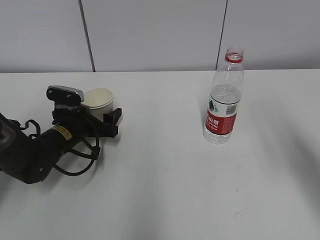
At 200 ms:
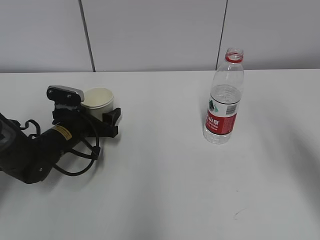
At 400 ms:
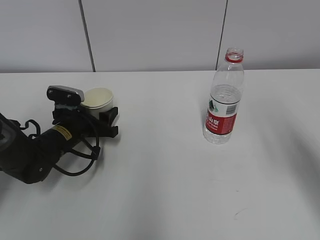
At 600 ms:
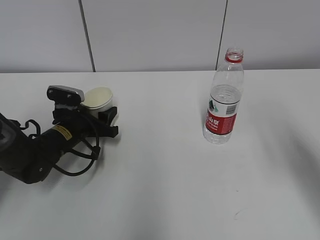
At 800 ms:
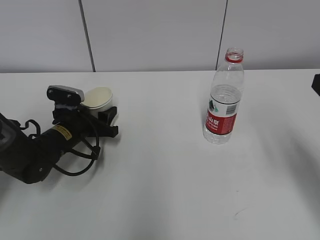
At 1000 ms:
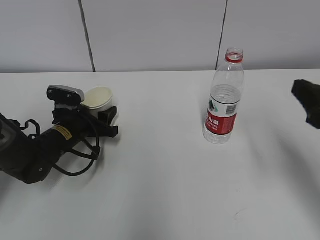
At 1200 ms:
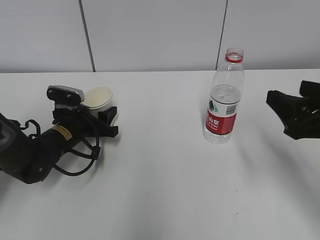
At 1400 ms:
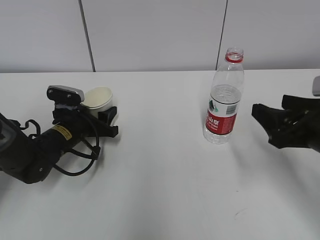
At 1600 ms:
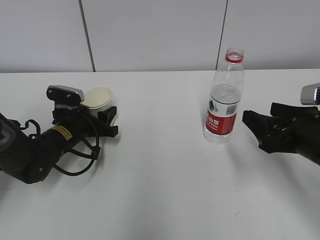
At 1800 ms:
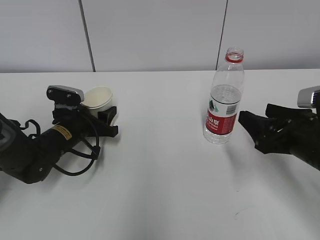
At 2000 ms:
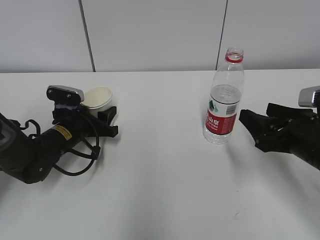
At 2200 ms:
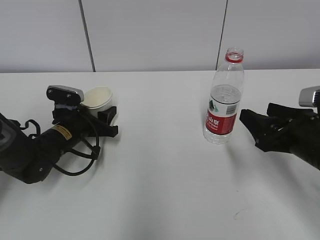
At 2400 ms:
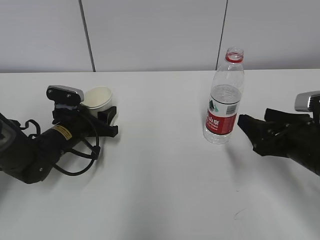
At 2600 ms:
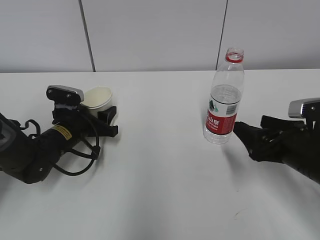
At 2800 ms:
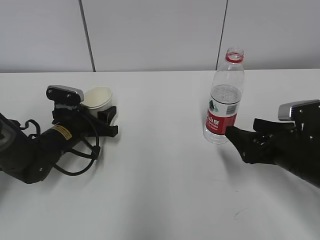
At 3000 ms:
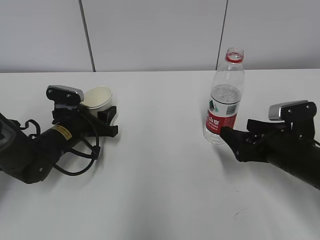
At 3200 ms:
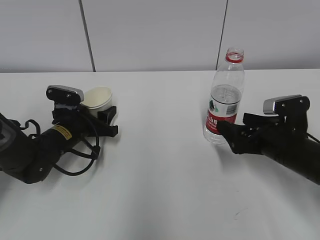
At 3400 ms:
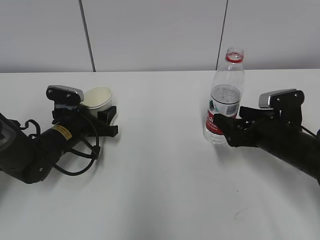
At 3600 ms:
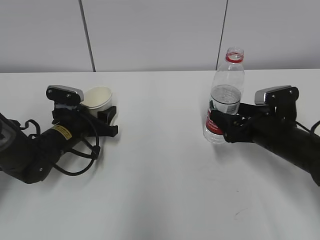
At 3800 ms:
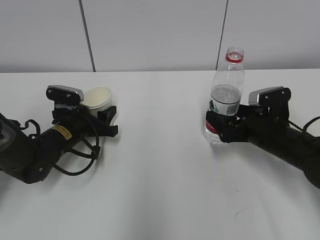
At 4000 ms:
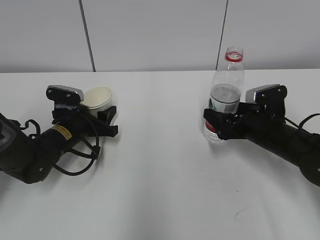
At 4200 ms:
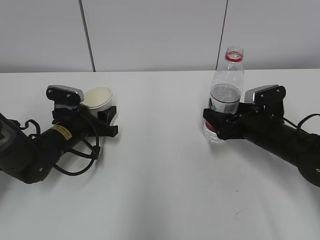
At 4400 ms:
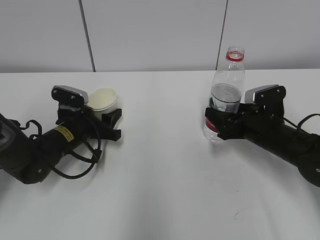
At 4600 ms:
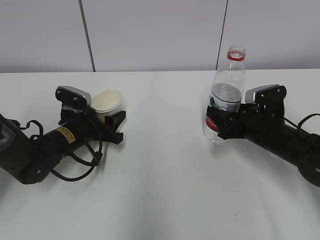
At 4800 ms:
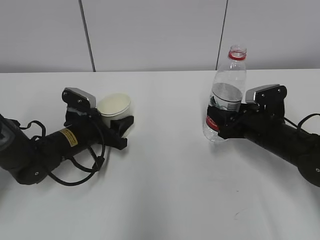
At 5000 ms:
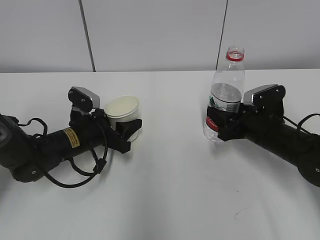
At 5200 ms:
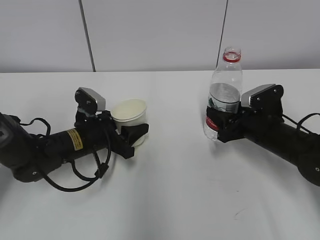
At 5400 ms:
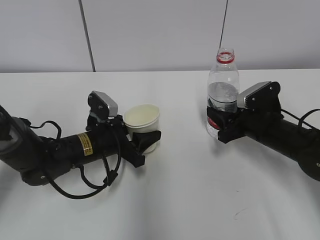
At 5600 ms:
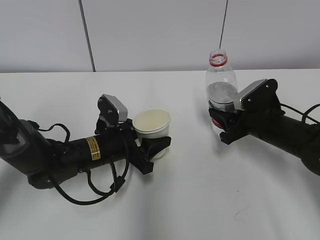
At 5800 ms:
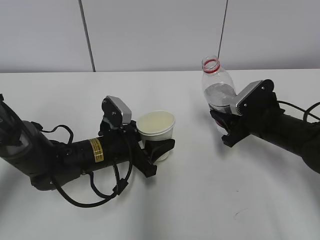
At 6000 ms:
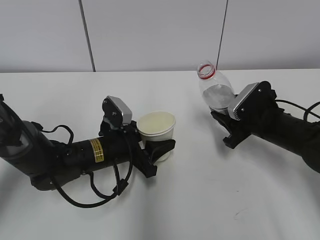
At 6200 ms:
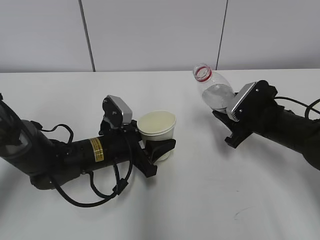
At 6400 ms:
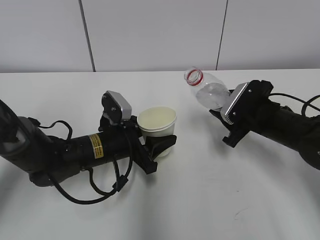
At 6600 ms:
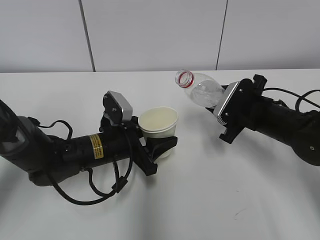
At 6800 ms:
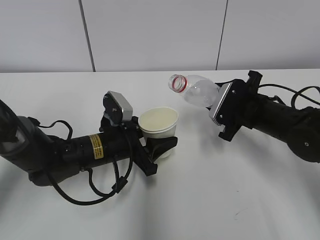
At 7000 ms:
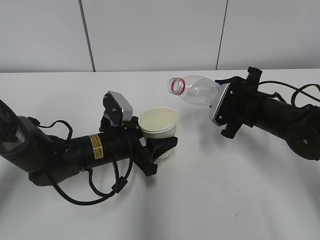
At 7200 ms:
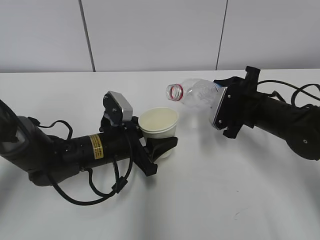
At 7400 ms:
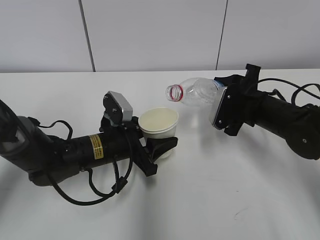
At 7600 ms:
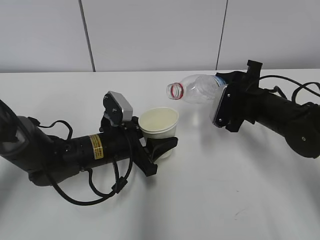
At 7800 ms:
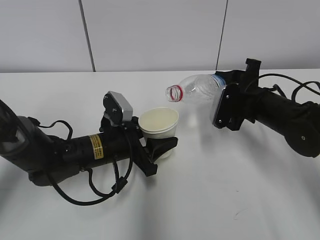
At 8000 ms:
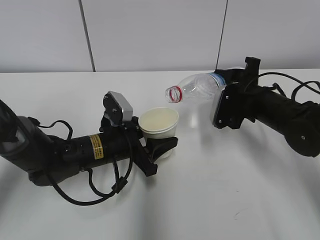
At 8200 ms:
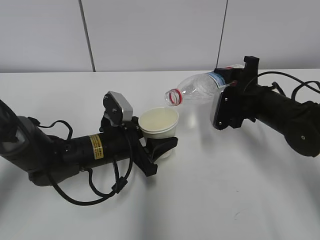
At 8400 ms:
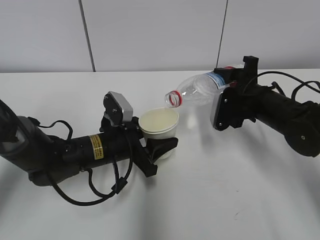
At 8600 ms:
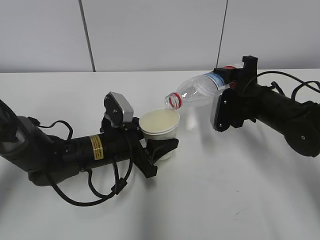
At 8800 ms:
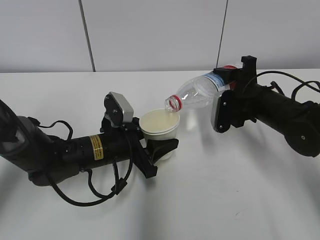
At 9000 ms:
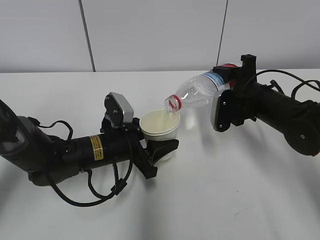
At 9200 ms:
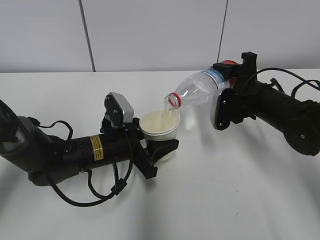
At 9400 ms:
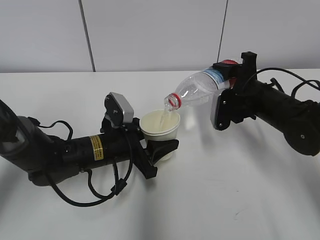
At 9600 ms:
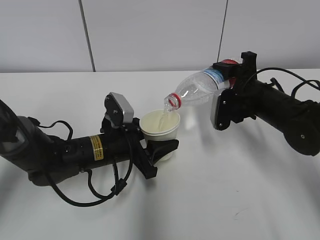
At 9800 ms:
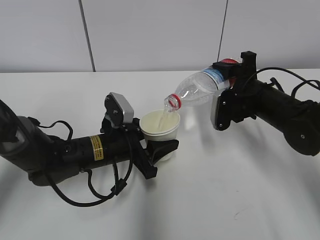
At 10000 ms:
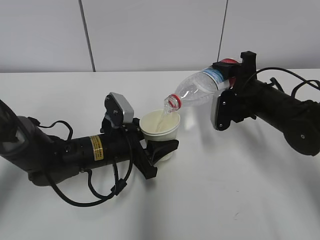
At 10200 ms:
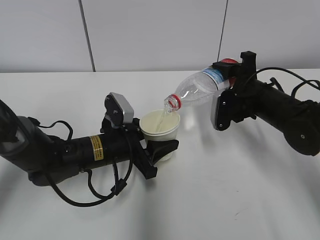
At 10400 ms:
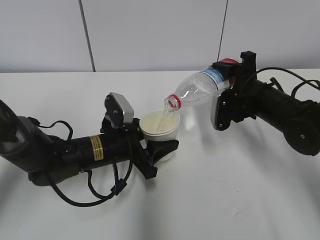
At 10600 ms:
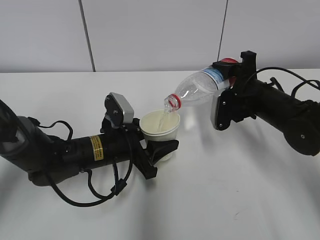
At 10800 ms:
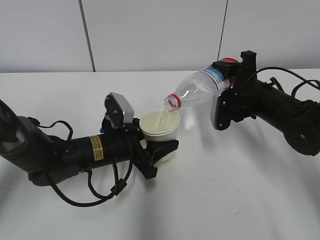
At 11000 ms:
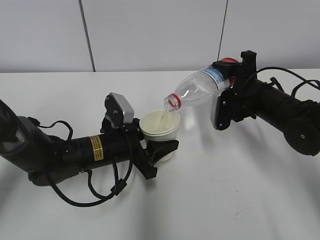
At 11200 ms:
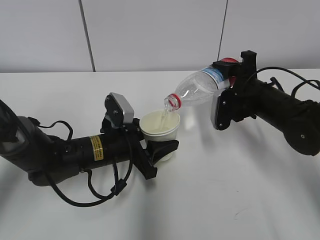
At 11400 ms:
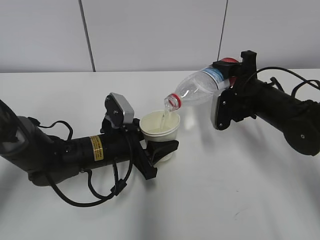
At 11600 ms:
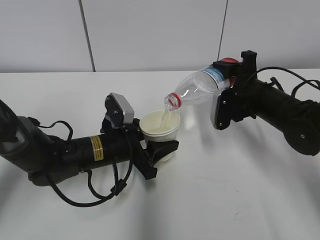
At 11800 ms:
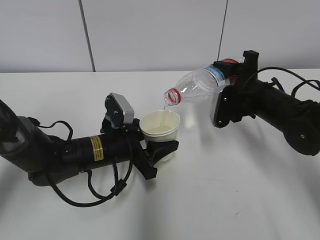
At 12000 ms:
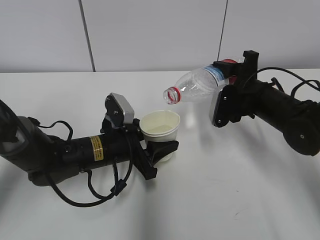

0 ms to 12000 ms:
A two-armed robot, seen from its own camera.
Step, 0 ms to 2800 ms: Grab the water bottle with the right hand.
Step, 3000 ms to 6400 ms: Lift the paper cup with the left hand.
Step, 6600 ms to 9200 ms: Pour water with the right hand.
0 ms to 1600 ms: The left gripper closes its fingers, while the right gripper shifts about 15 cm downward and forward.
1600 ms to 3000 ms: The right gripper shifts approximately 5 cm downward, and opens.
3000 ms to 4400 ms: The right gripper is displaced forward by some 5 cm, and closes up.
4400 ms to 6000 ms: The left gripper heads to the right and backward, covering approximately 10 cm. Meanwhile the right gripper closes.
7600 ms to 9000 ms: The grippers make only small movements.
9000 ms to 10400 ms: The two grippers keep their place.
10400 ms to 12000 ms: The grippers stay close to where they were, moving slightly.

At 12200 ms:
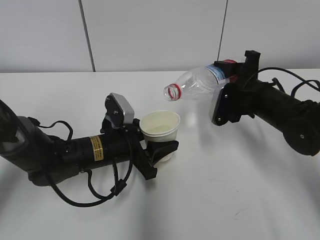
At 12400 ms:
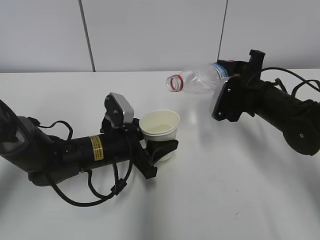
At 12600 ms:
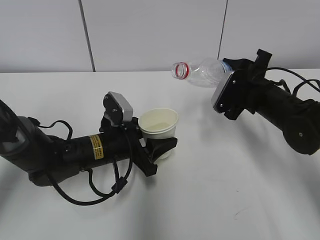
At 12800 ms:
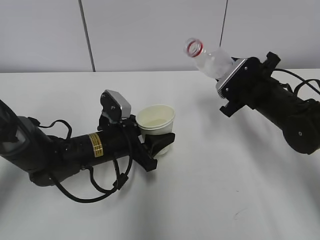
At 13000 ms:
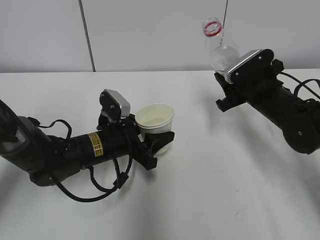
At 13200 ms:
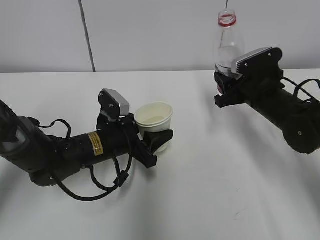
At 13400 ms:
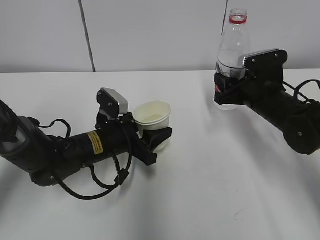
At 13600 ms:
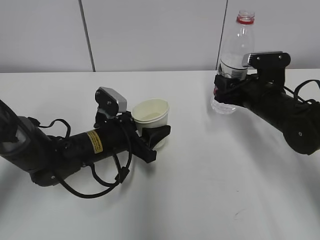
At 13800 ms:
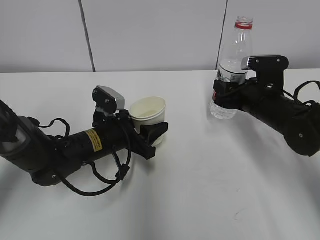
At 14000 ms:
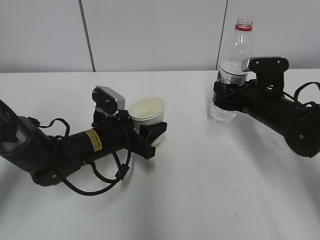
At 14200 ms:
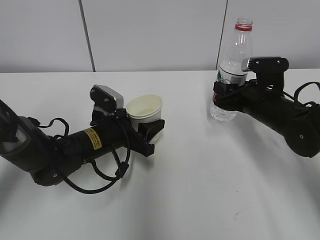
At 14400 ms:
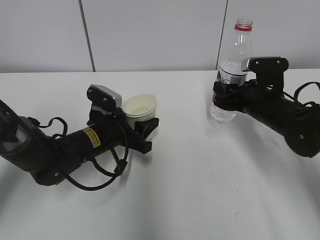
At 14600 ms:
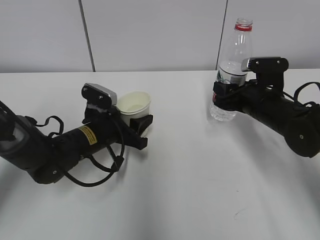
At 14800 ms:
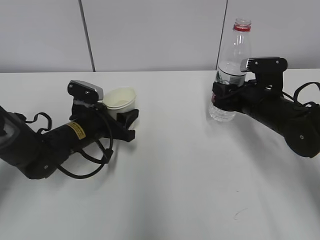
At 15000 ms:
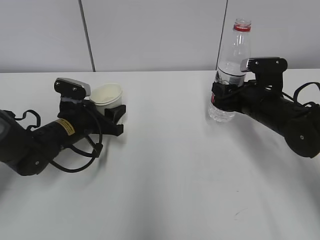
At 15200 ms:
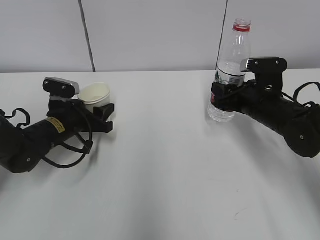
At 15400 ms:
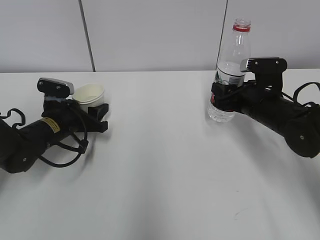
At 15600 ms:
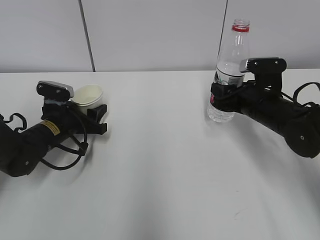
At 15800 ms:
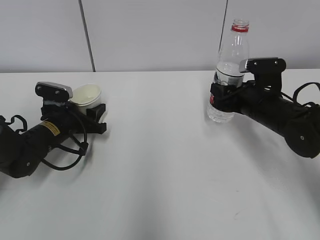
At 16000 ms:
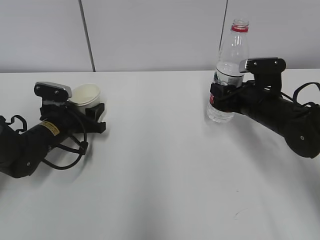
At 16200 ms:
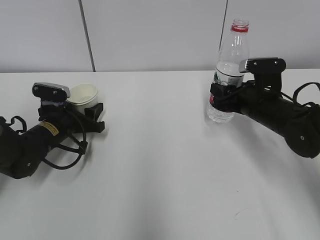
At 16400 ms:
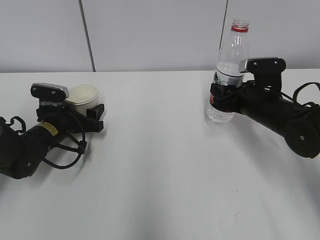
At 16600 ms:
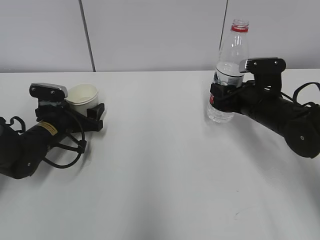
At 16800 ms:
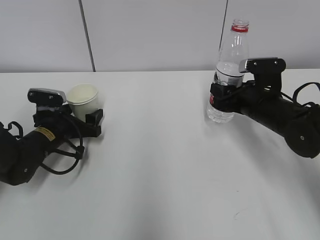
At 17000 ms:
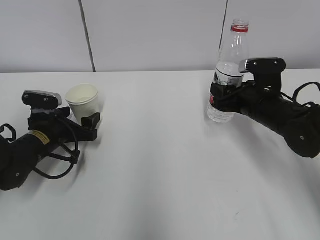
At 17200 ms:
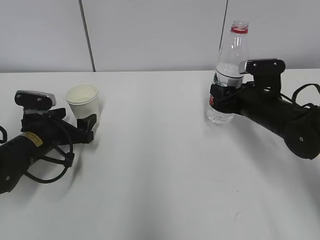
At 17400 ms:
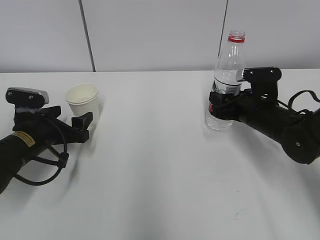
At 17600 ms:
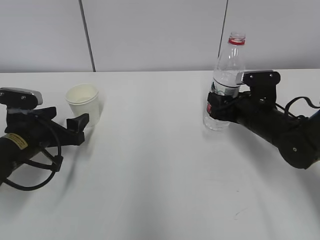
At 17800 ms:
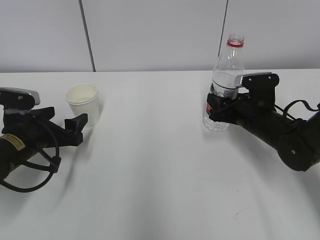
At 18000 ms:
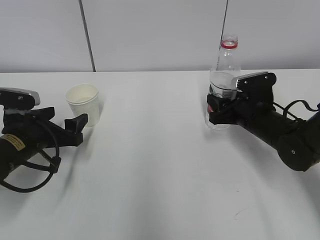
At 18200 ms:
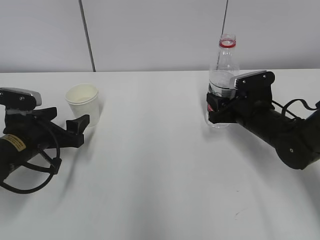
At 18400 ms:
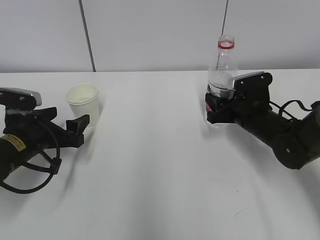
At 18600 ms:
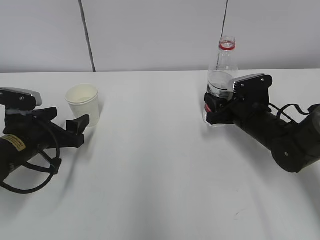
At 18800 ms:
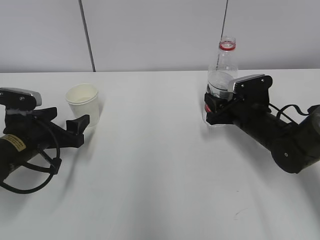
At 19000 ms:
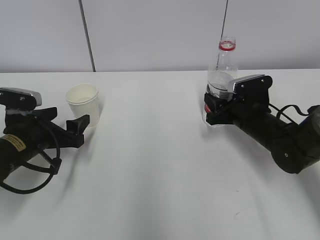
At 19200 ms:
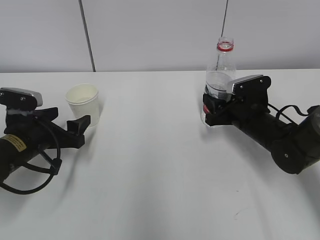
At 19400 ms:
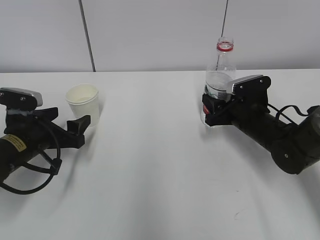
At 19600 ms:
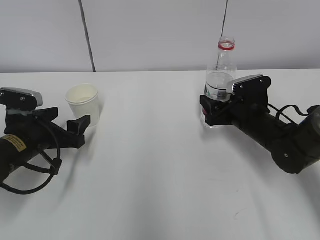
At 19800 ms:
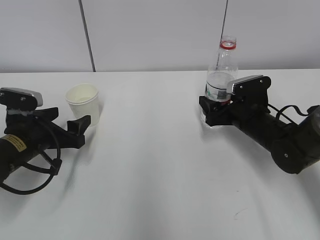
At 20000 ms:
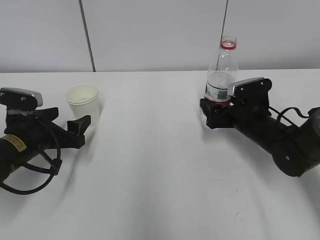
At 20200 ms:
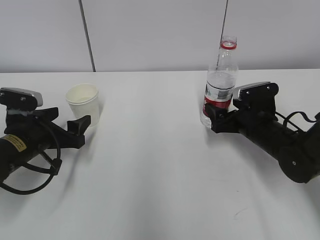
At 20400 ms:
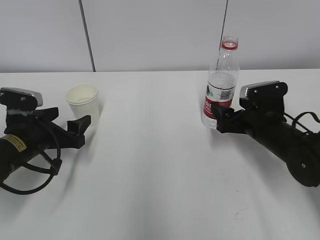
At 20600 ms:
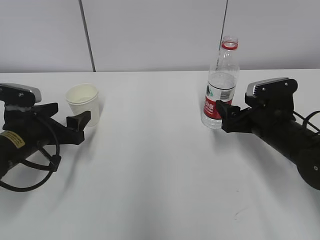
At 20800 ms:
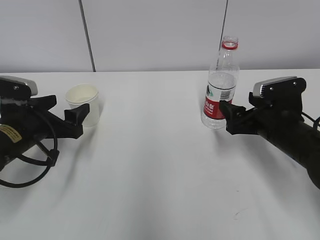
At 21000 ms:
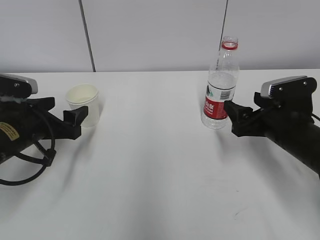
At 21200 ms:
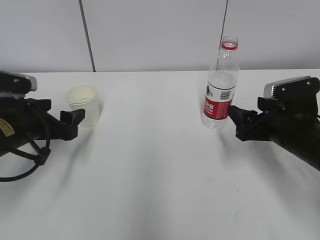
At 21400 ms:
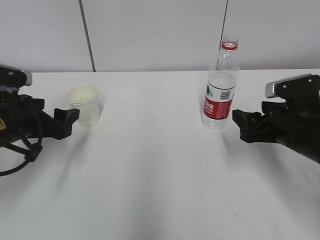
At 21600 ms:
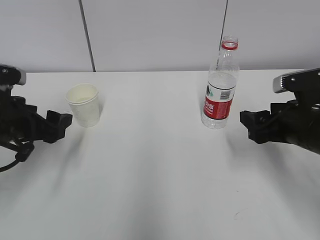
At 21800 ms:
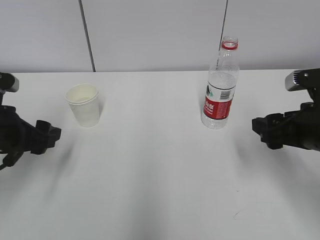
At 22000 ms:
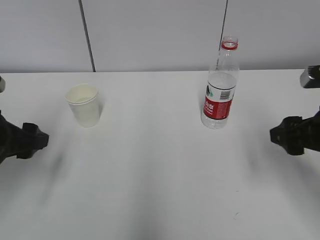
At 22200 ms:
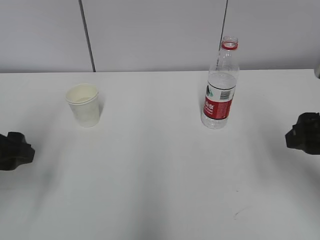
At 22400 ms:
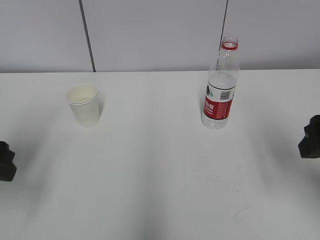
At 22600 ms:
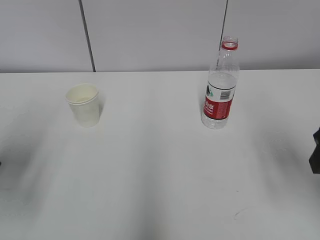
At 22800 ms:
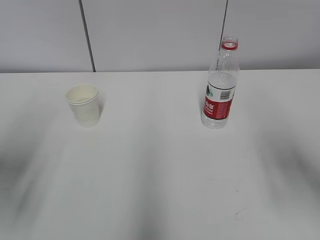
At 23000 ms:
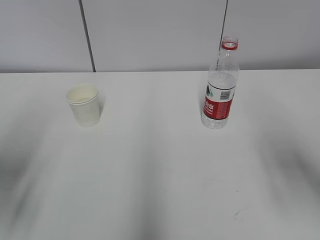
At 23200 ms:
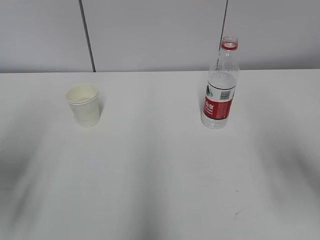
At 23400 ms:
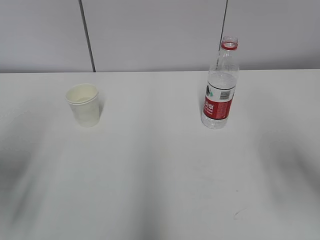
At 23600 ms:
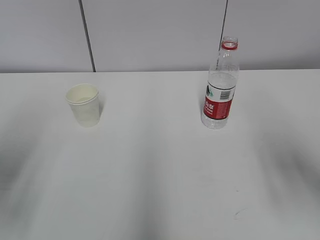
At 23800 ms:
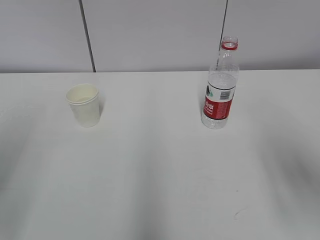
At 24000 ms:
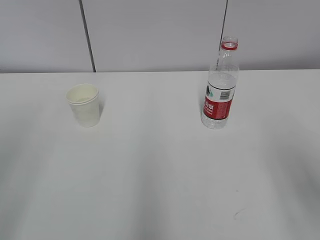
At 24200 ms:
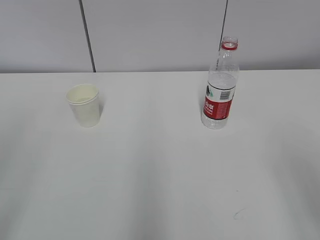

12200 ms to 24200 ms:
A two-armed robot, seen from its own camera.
Step, 12600 ms to 15600 ms: Place the water bottle with the right hand.
13800 ms to 15200 ms: The left gripper goes roughly 10 cm to the left.
15200 ms to 16600 ms: The left gripper opens its fingers.
16600 ms to 18200 ms: The left gripper heads backward, covering roughly 10 cm.
18200 ms to 19800 ms: The right gripper opens.
19800 ms to 21200 ms: The right gripper moves backward and upward, about 10 cm.
21200 ms to 22600 ms: Both grippers move upward and backward, about 15 cm.
22600 ms to 24200 ms: The right gripper travels backward by approximately 10 cm, while the left gripper is displaced backward and upward by some 20 cm.
